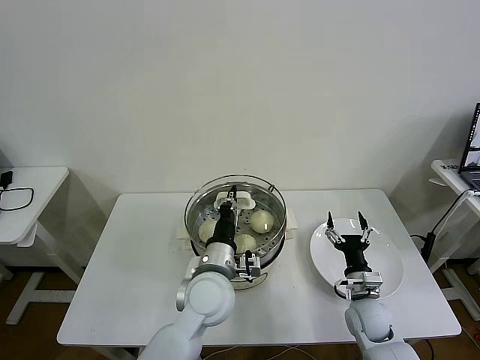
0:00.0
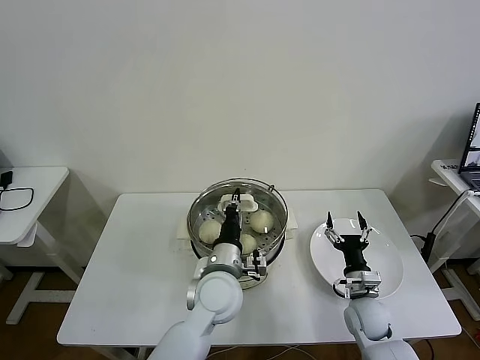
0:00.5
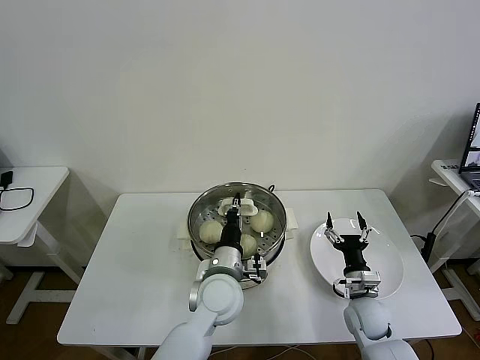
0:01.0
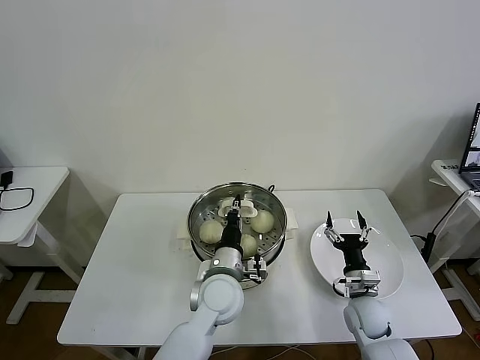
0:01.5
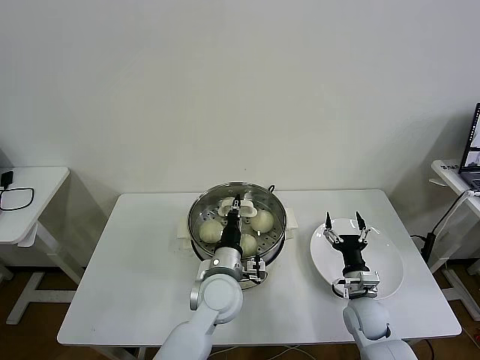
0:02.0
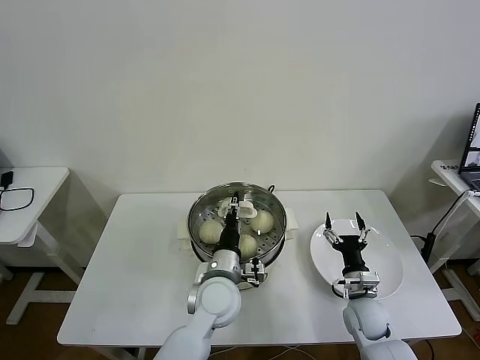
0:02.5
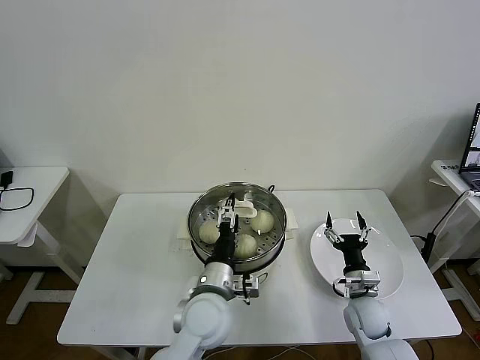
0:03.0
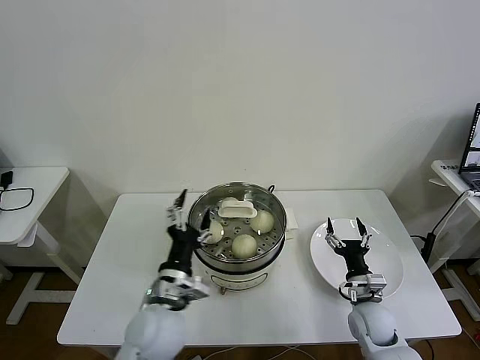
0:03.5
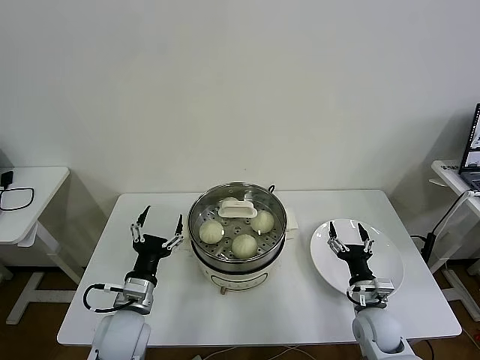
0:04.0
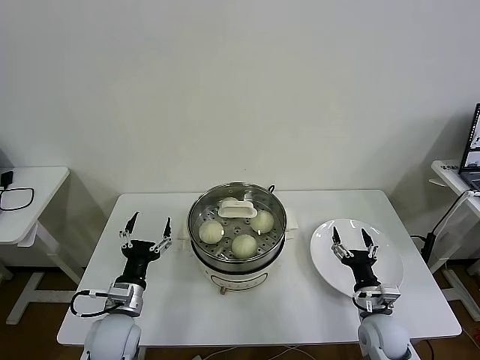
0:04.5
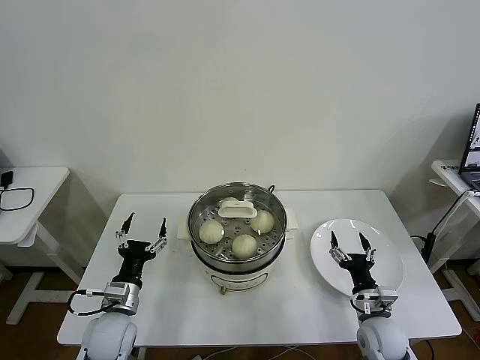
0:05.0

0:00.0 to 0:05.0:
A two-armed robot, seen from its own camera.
Task of the whole recording: take steamed baozi put them in steamer then cover it.
Step, 0:00.0 to 0:02.0: Place the pot lid on the steamer with left gripper.
0:00.0 to 0:02.5: The left gripper moves approximately 5 cm.
0:02.5 to 0:05.0: The left gripper heads to the left, covering roughly 20 cm, and opens. Meanwhile the right gripper ends up some 5 cm from where it was.

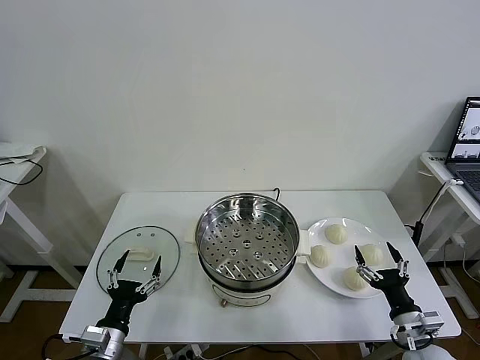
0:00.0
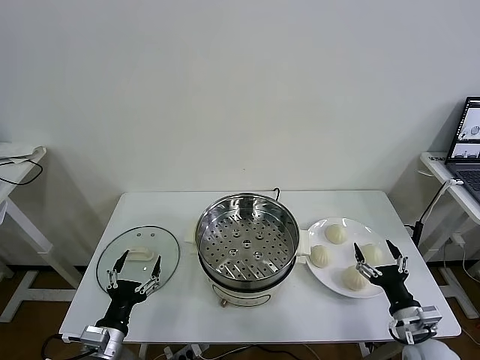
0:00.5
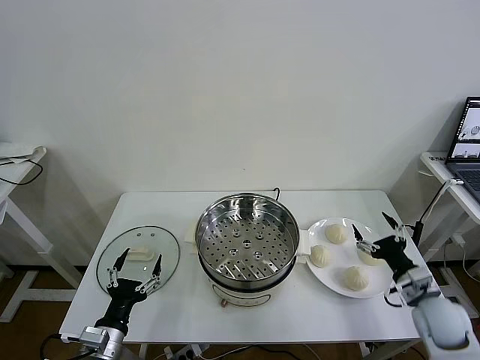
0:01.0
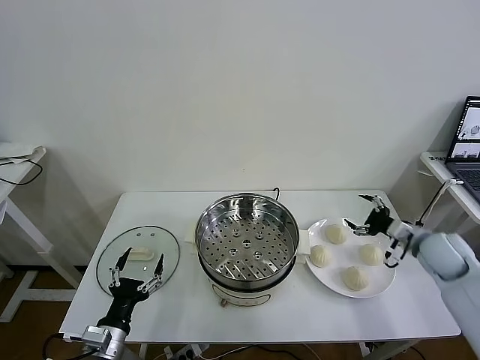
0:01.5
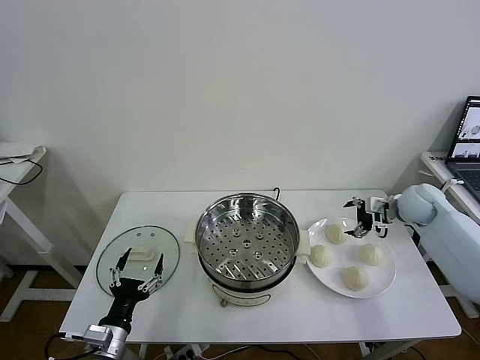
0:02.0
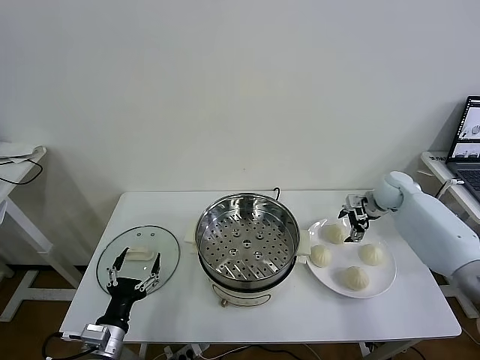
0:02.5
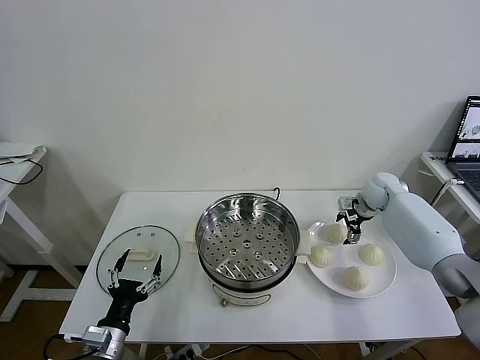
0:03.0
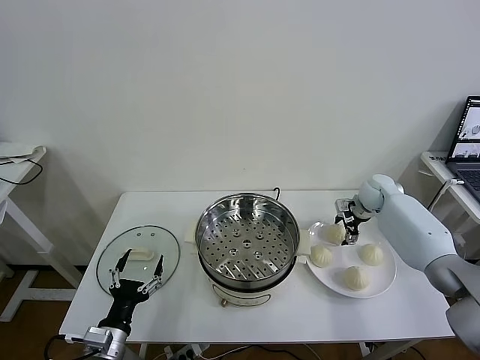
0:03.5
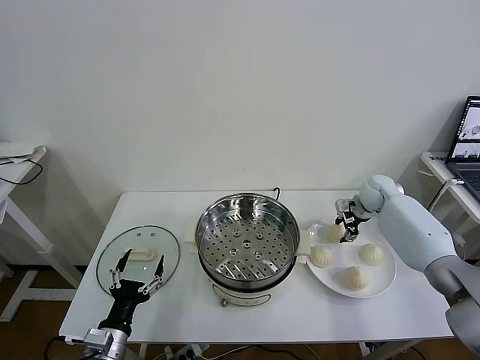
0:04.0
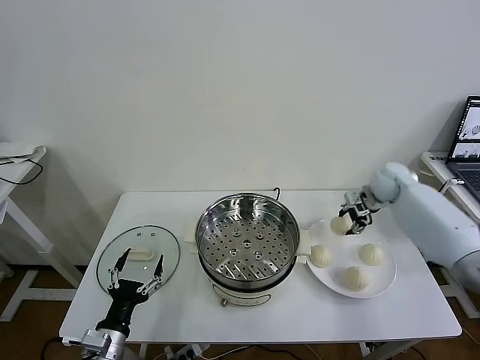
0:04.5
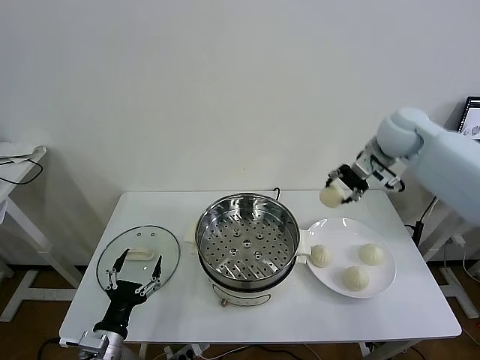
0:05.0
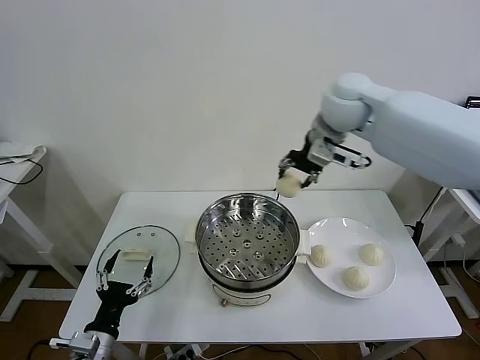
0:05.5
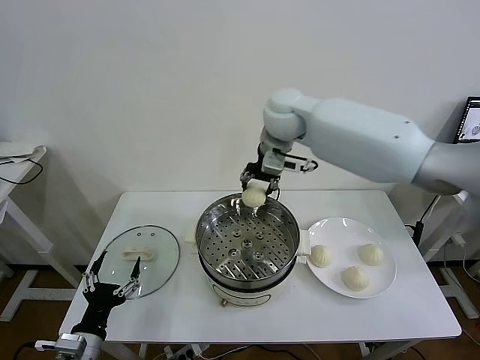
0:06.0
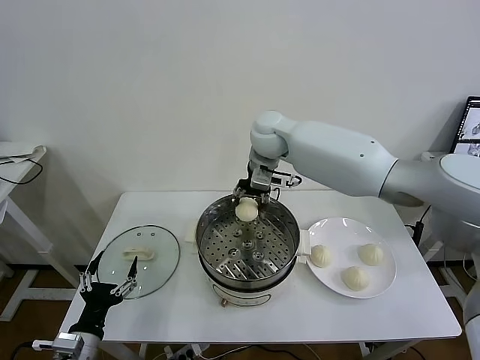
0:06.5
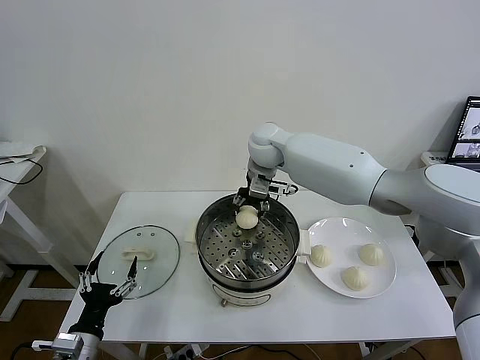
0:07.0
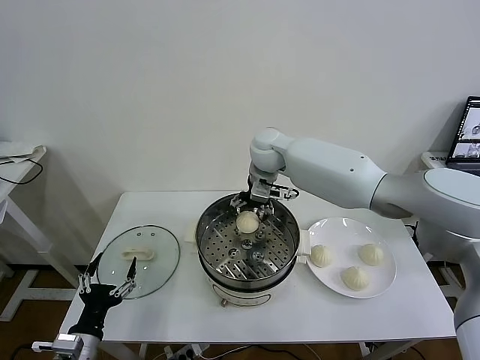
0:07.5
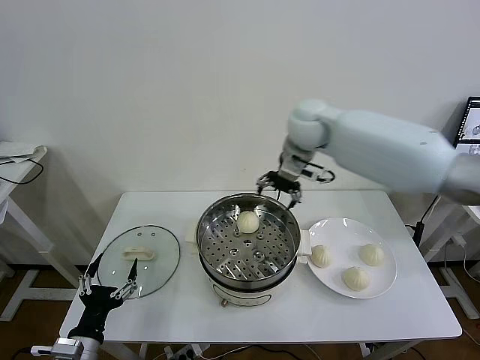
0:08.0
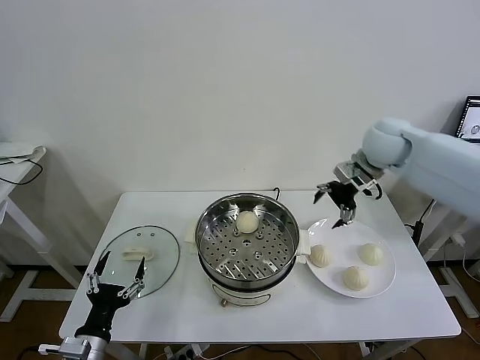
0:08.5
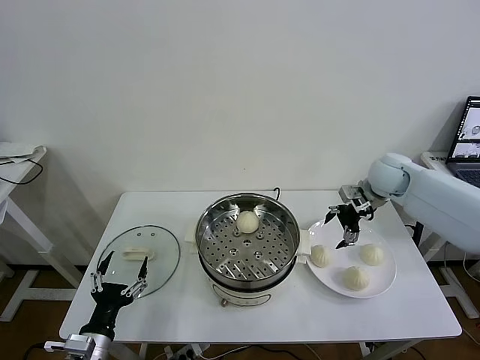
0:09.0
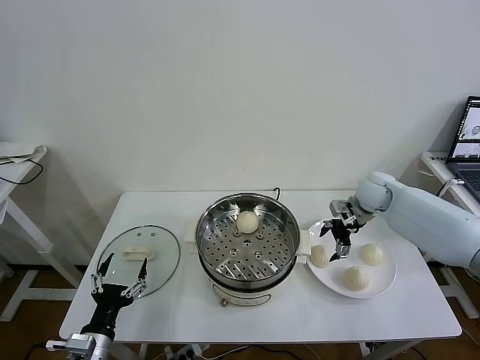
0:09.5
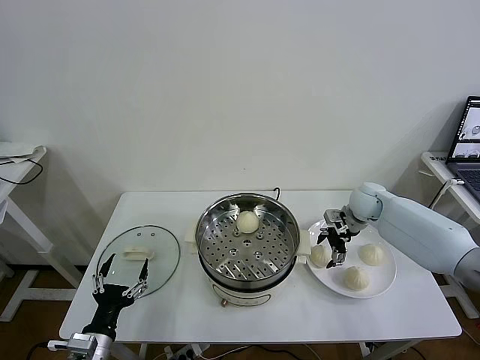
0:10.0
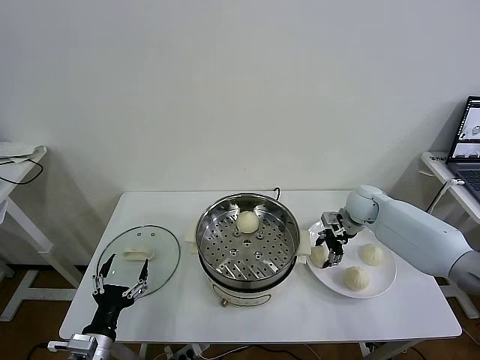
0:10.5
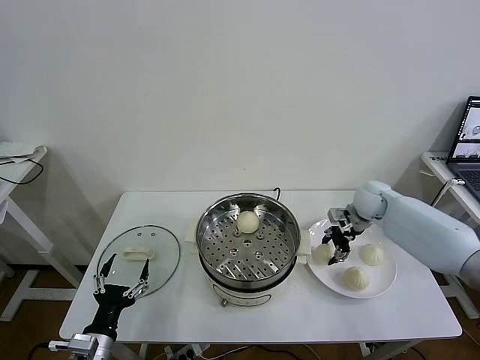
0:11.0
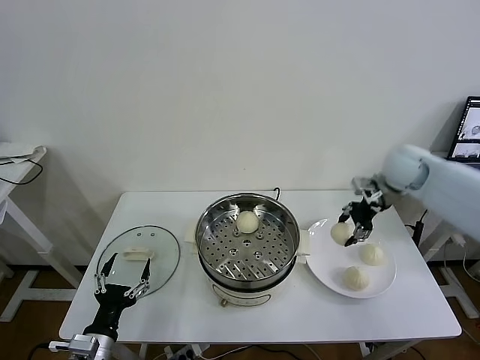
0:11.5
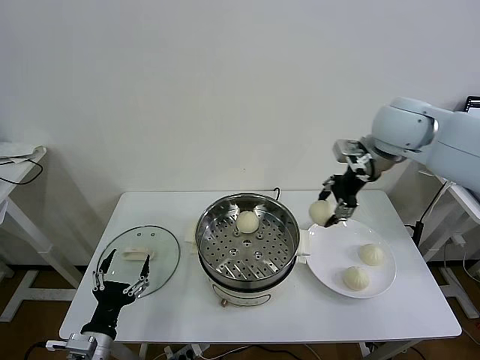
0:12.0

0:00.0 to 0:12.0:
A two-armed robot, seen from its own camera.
Task of the whole recording: take steamed baozi put them in steamer then cover it.
Step, 0:00.0 to 0:04.0: Grasp the baozi in the plate with right gripper.
Step, 0:04.5 to 0:07.5: Place the baozi on the steamer with right gripper.
Step, 0:08.0 to 0:10.5: Grasp the baozi in the plate with right gripper.
0:02.0 to 0:04.0: The right gripper travels forward by roughly 5 cm, and closes up.
0:04.0 to 0:06.0: The right gripper travels to the left and upward by roughly 40 cm.
0:06.0 to 0:08.0: The right gripper travels to the right by some 10 cm, and opens.
0:08.0 to 0:10.0: The right gripper moves downward and to the right, some 30 cm.
0:10.0 to 0:12.0: The right gripper shifts approximately 25 cm upward, and closes its fingers.

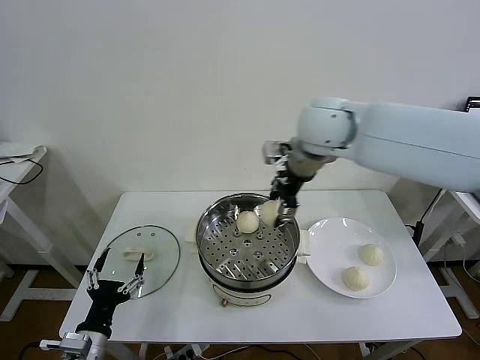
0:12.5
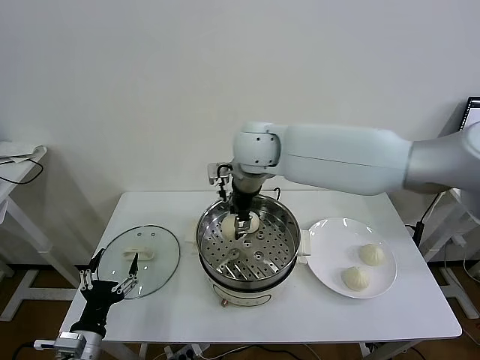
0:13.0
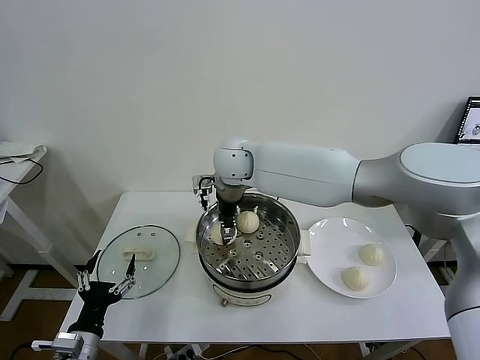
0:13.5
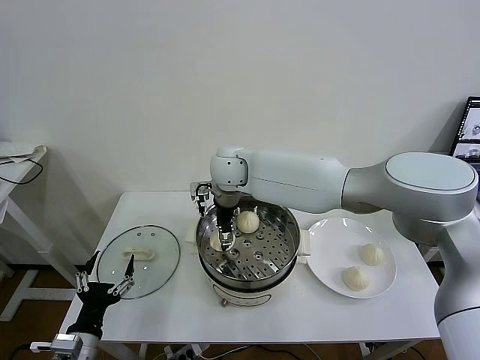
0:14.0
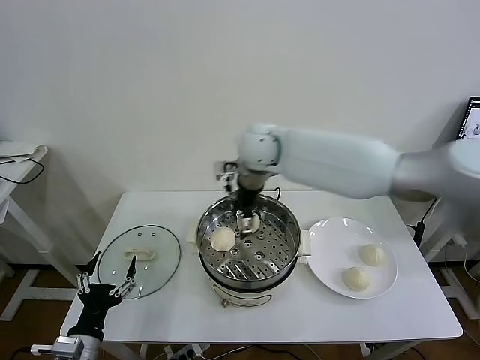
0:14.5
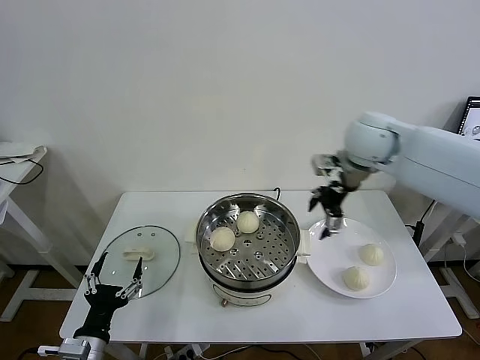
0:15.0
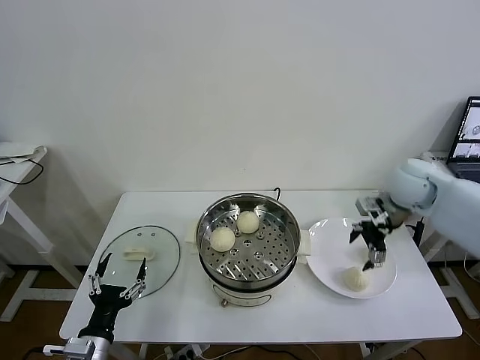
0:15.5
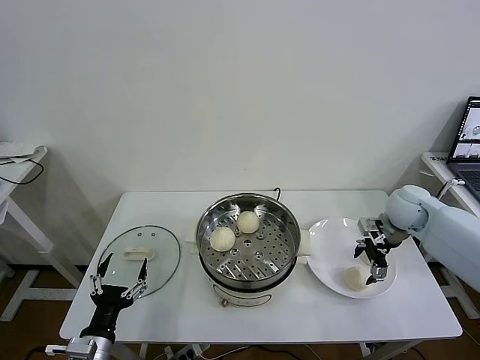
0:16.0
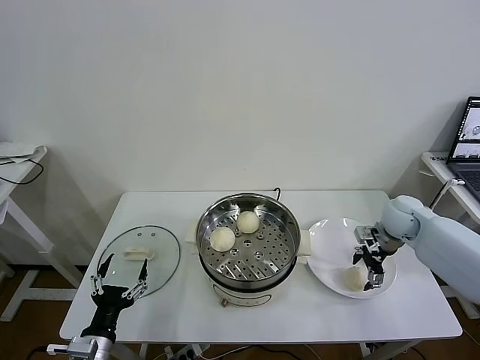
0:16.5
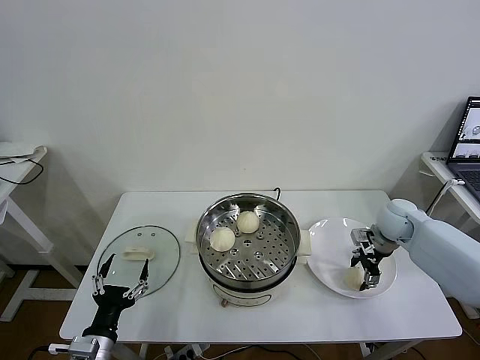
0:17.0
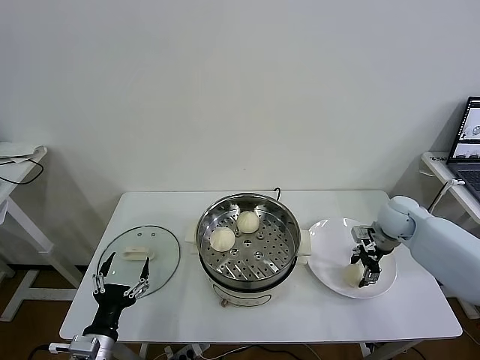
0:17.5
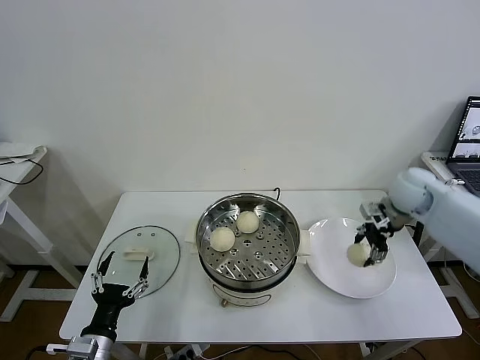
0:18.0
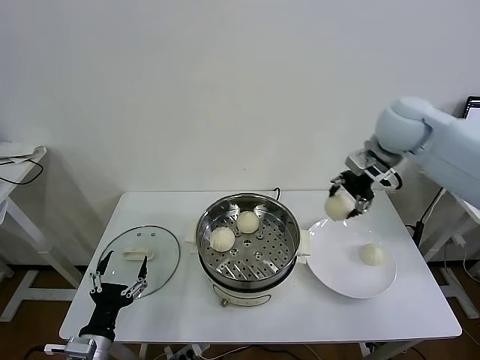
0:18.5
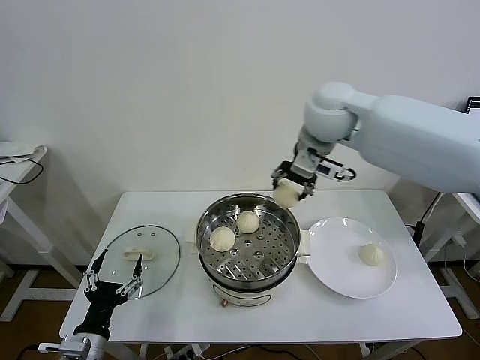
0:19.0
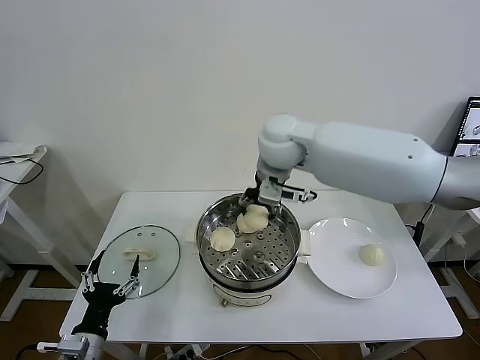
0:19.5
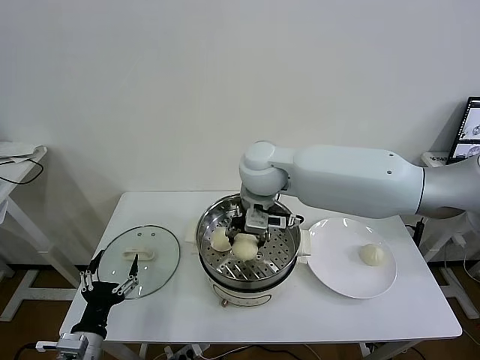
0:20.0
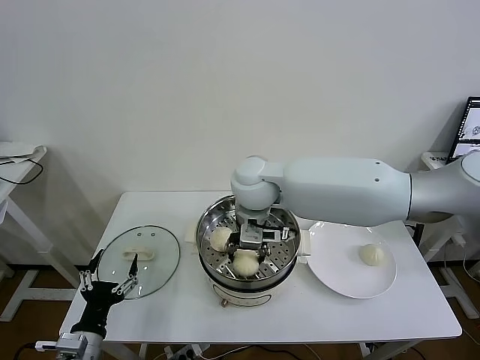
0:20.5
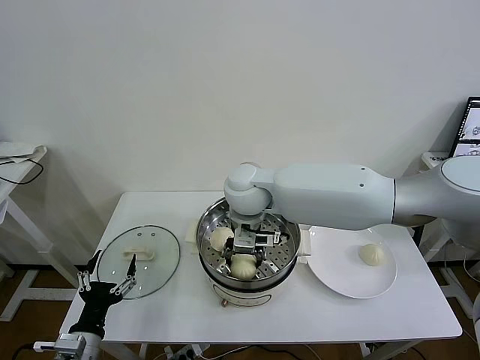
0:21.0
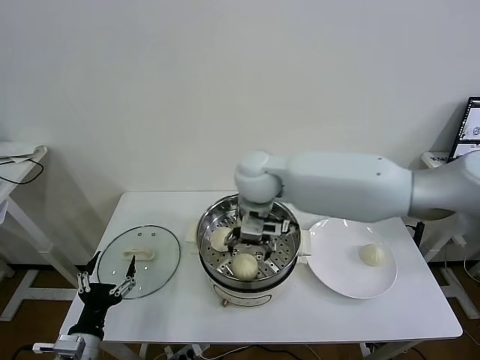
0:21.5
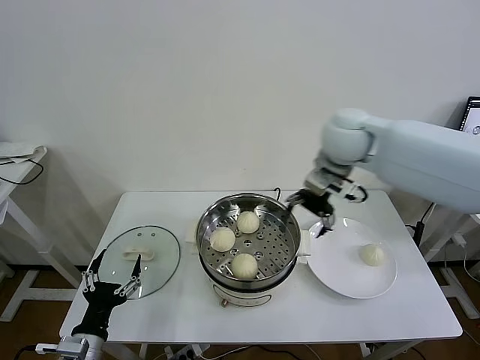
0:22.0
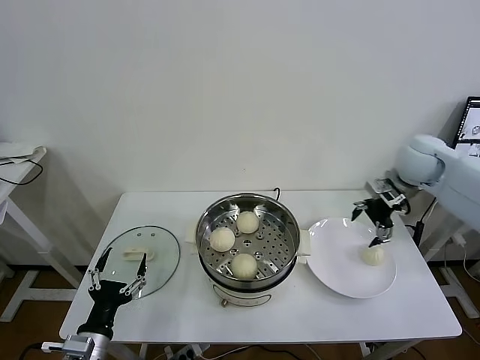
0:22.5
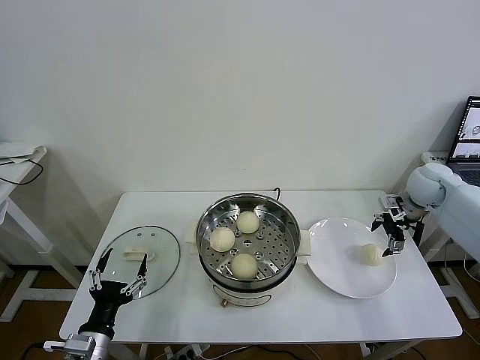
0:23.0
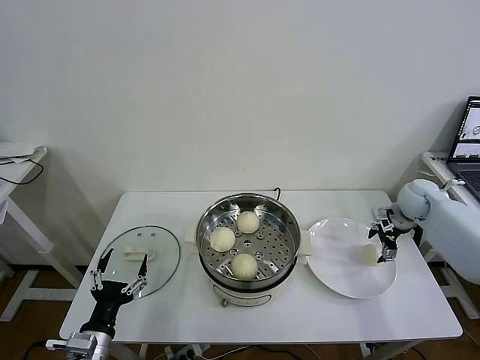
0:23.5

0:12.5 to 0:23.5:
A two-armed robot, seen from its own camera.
Task of the whole recording: take steamed baozi put them in steamer then cover it.
Step, 0:14.5 to 0:17.5: Grasp the baozi in the plate with right gripper.
Step, 0:18.0 to 0:21.5: Place the baozi on the steamer with right gripper.
0:12.5 to 0:14.5: The right gripper reaches about 15 cm to the left, then returns, and opens.
0:14.5 to 0:16.0: The right gripper shifts approximately 35 cm to the right and downward.
0:16.0 to 0:18.0: The right gripper moves upward, approximately 5 cm, and closes.
0:18.0 to 0:20.0: The right gripper shifts about 35 cm to the left.
0:20.0 to 0:21.5: The right gripper opens its fingers.
0:21.5 to 0:23.5: The right gripper shifts about 40 cm to the right.
